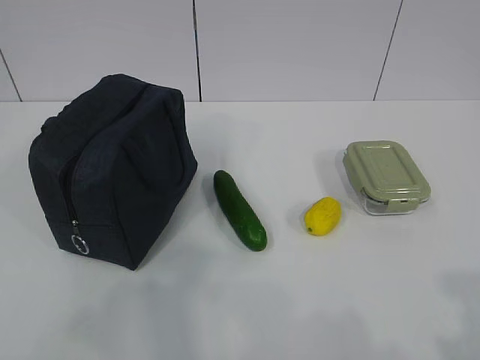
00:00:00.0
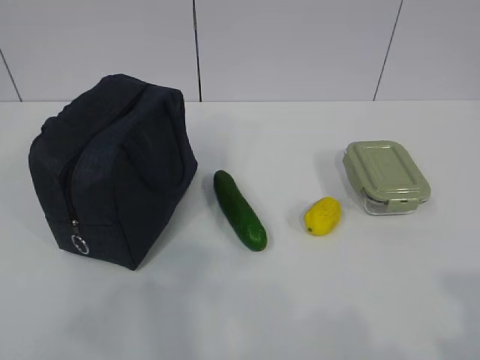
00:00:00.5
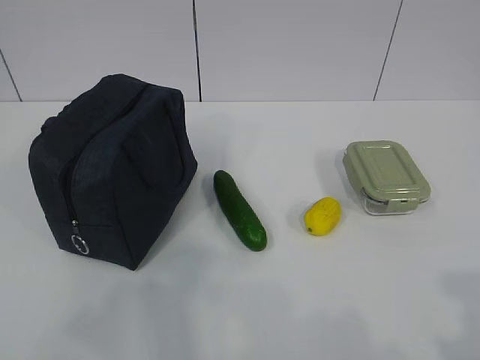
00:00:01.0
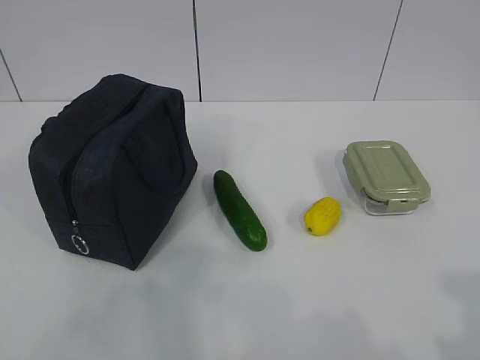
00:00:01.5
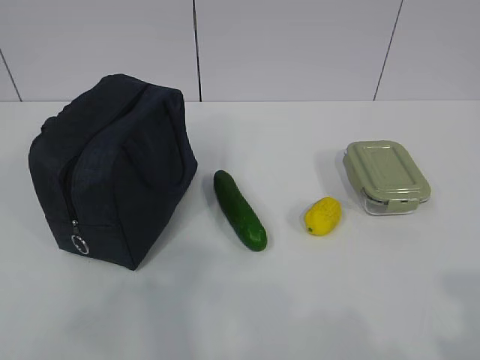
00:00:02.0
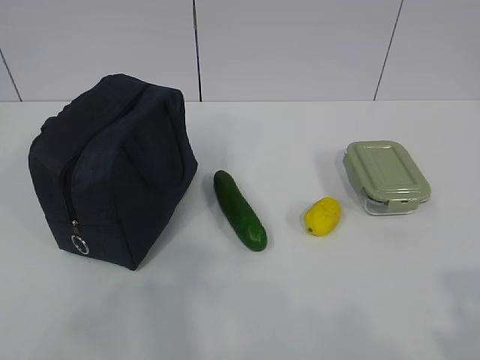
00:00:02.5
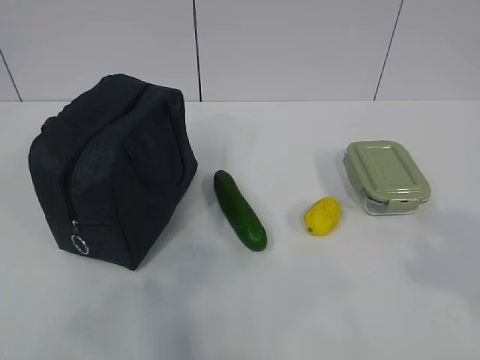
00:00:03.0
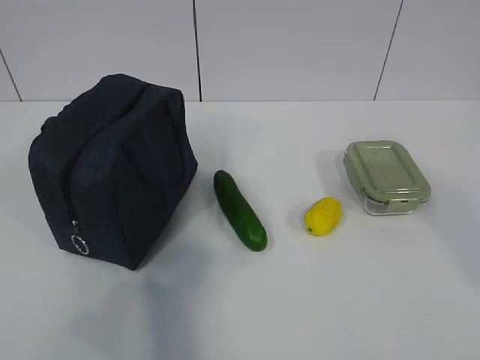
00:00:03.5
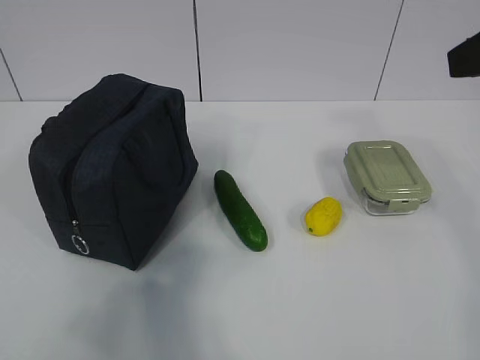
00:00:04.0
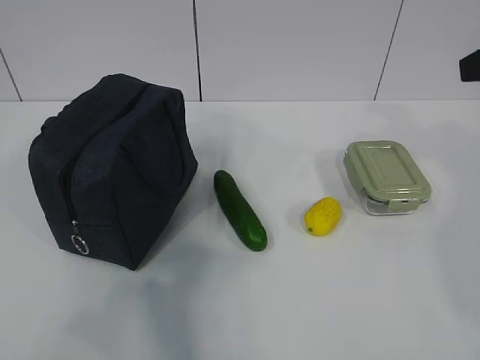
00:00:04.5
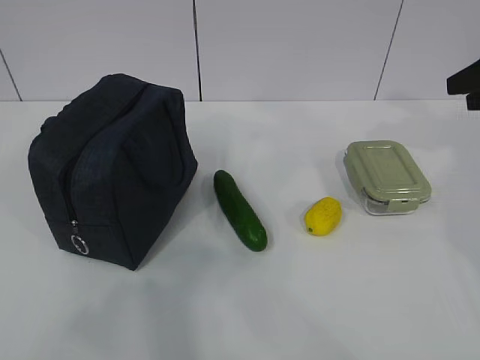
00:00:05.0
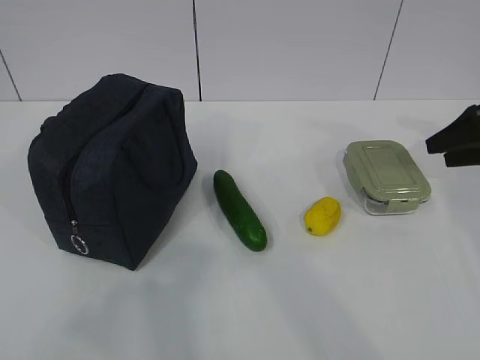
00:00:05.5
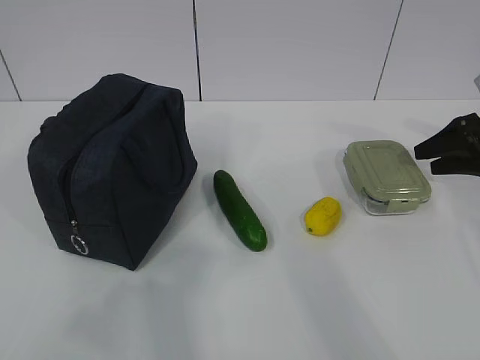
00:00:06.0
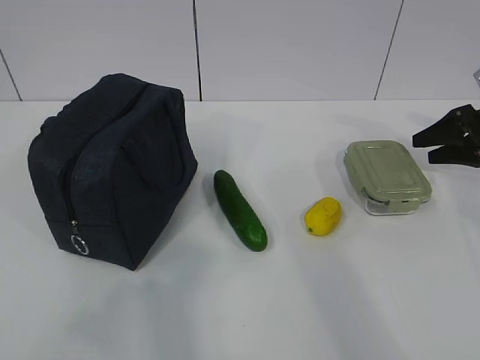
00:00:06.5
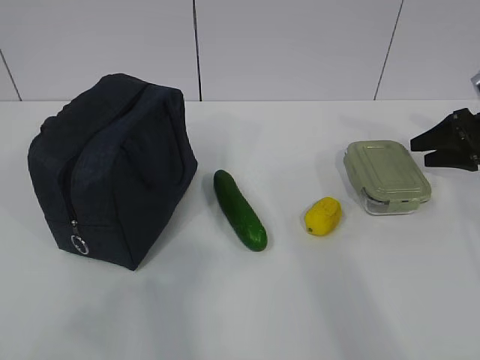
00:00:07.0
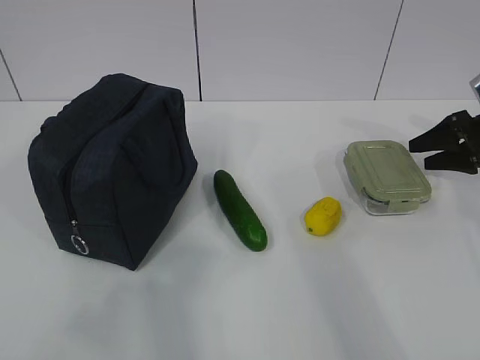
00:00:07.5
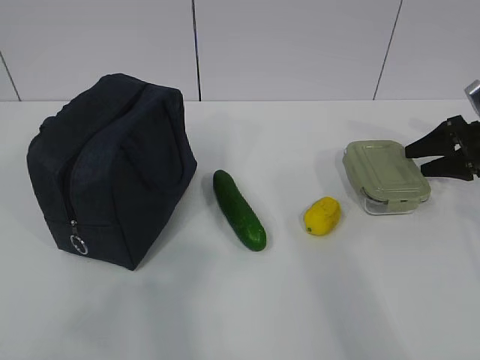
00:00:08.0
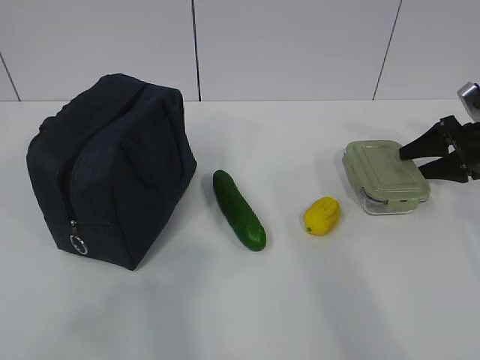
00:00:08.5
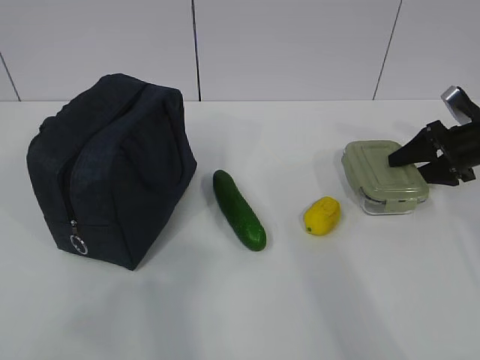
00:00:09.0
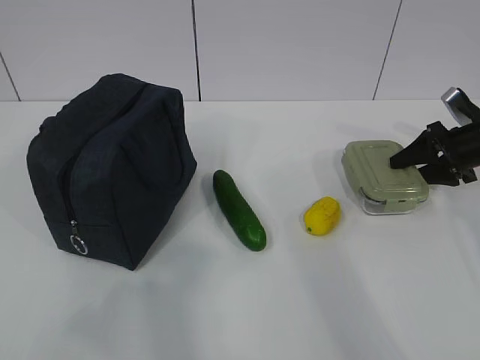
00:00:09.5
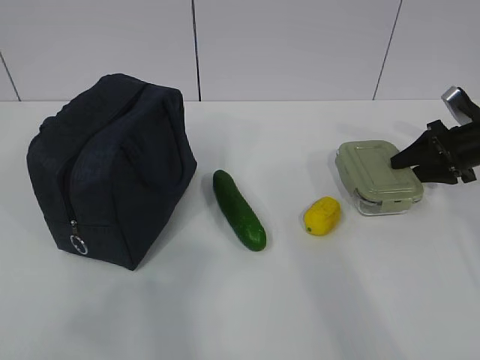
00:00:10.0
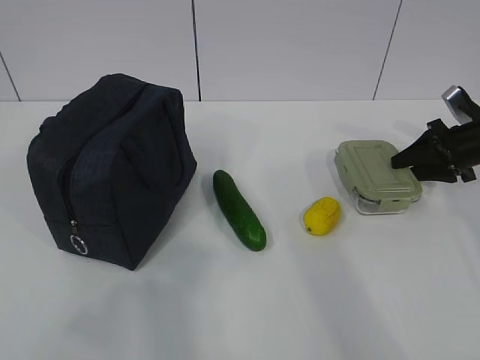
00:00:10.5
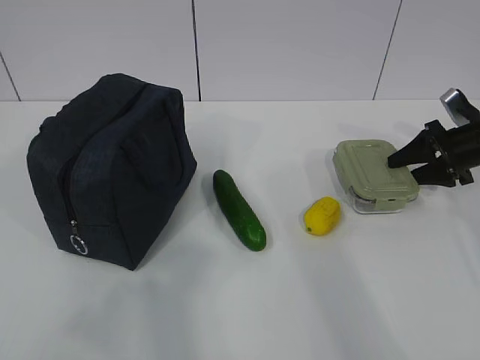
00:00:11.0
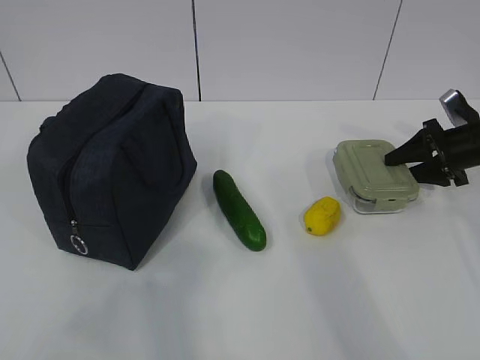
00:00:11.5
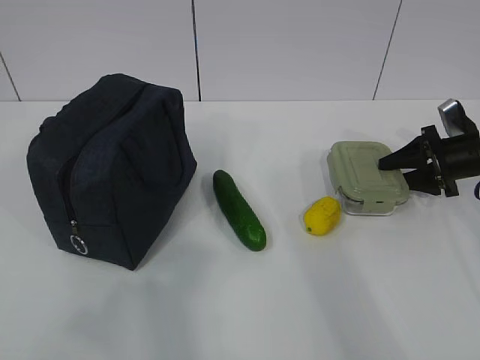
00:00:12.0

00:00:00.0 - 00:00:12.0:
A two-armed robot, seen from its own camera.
Step, 00:00:00.0 - 00:00:11.5: Grab the lunch box with your right hand.
00:00:02.0 - 00:00:04.0: The right gripper is displaced forward and upward by about 25 cm, and opens.
00:00:04.0 - 00:00:06.0: The right gripper travels downward, forward and to the right by roughly 35 cm.
00:00:06.0 - 00:00:10.0: There are only small adjustments of the grippers.
00:00:10.0 - 00:00:12.0: The grippers make only small movements.

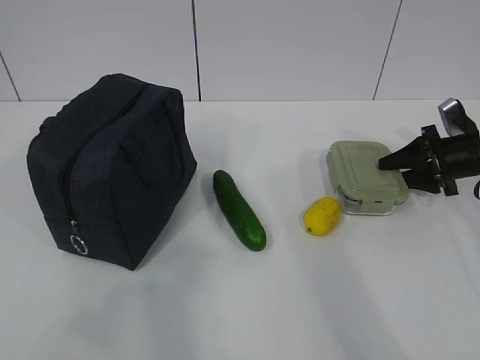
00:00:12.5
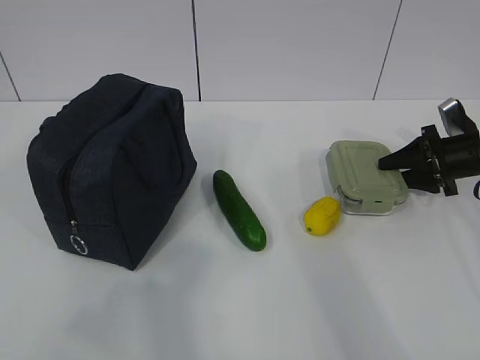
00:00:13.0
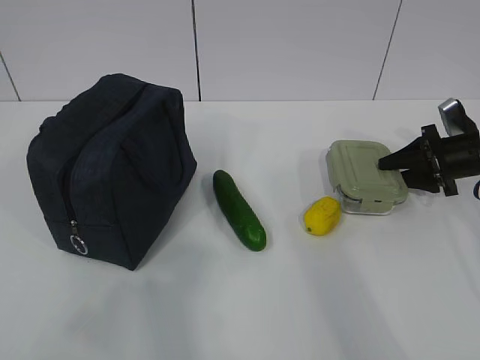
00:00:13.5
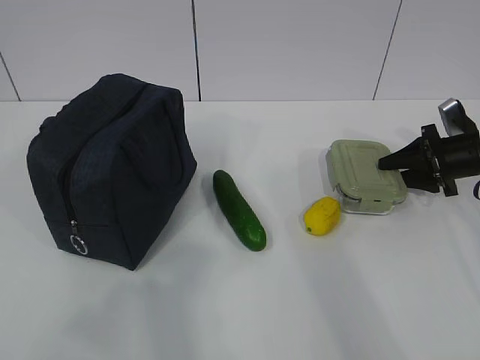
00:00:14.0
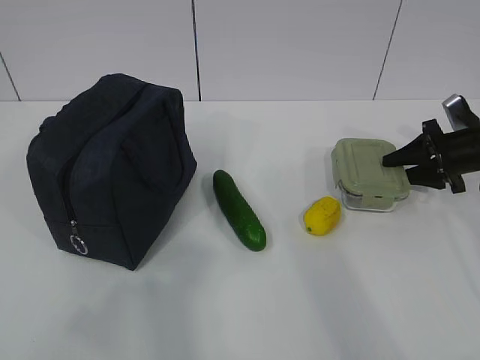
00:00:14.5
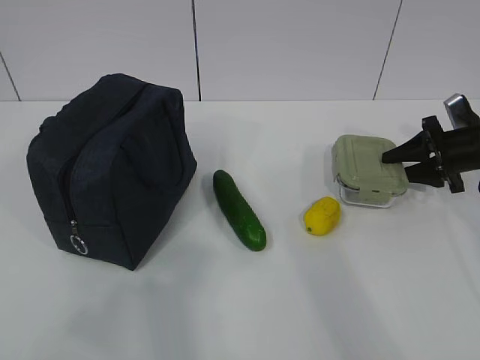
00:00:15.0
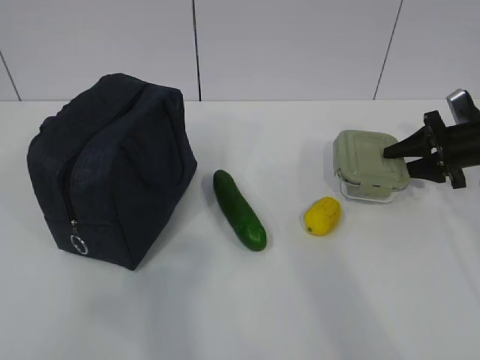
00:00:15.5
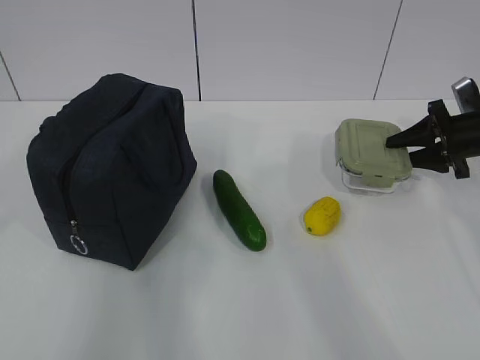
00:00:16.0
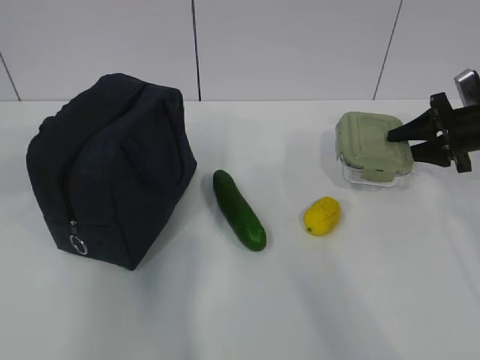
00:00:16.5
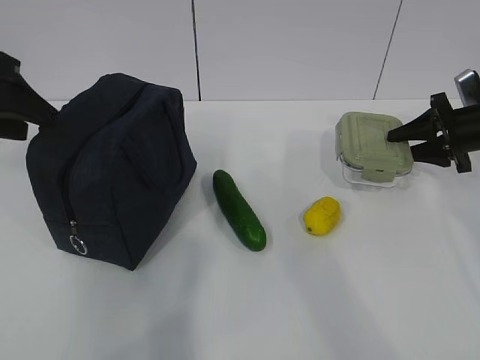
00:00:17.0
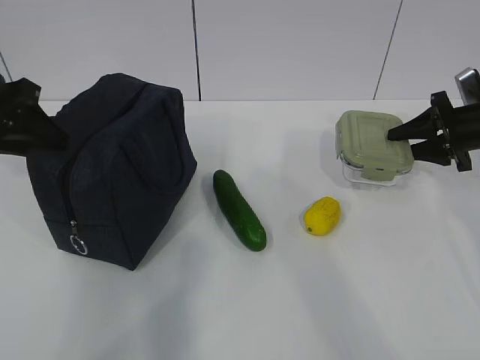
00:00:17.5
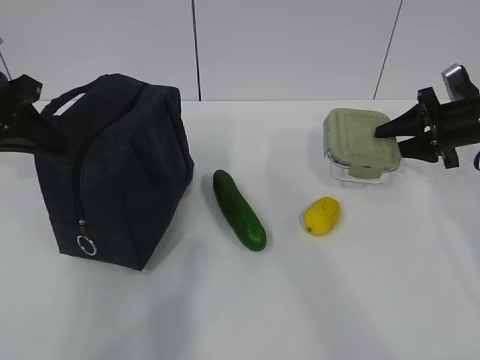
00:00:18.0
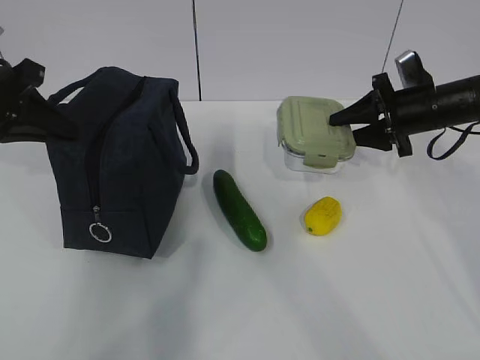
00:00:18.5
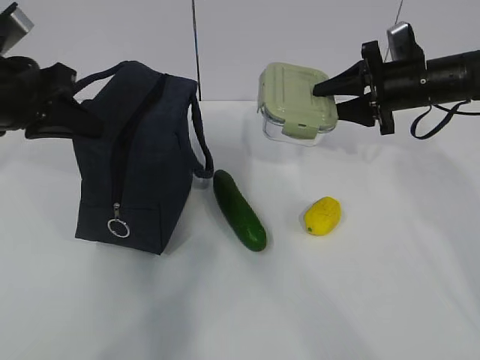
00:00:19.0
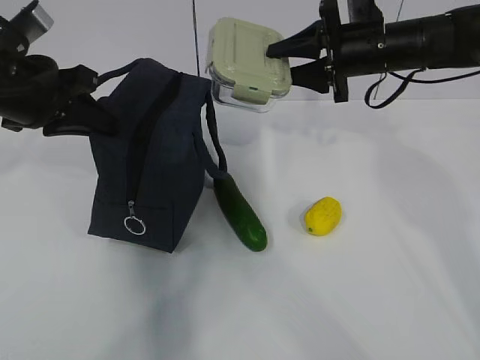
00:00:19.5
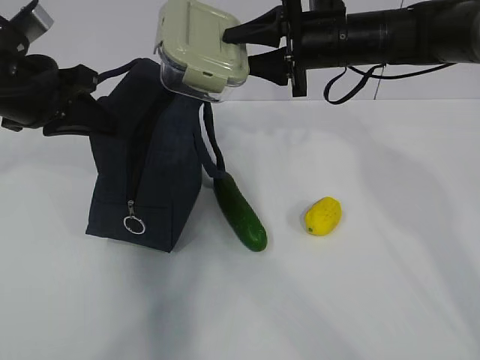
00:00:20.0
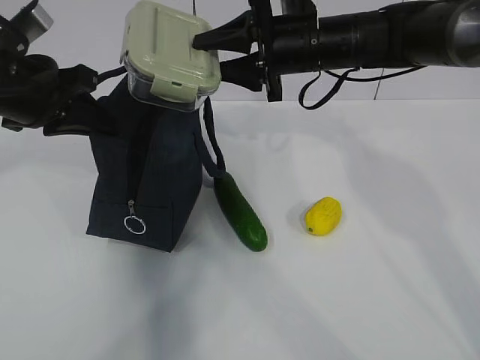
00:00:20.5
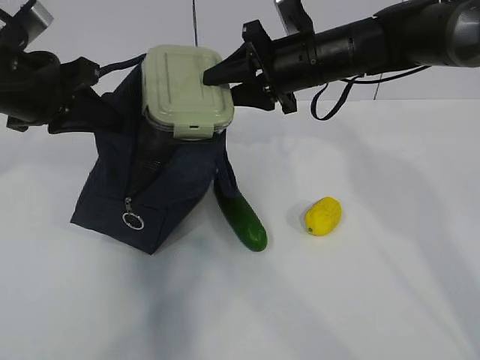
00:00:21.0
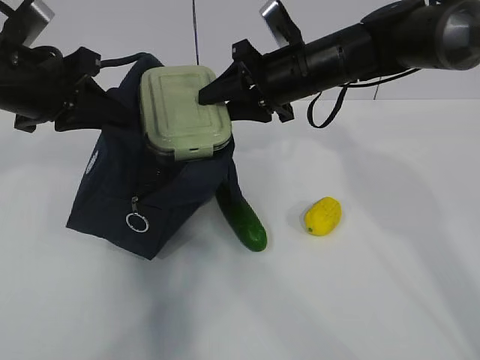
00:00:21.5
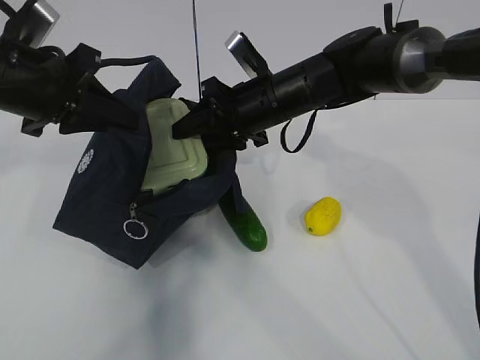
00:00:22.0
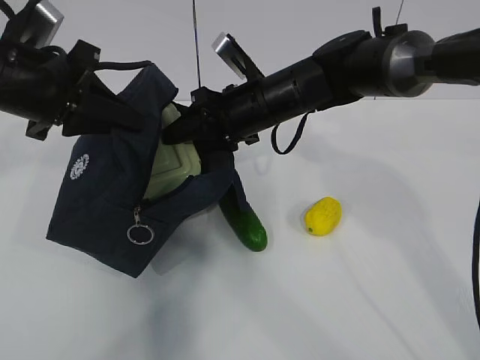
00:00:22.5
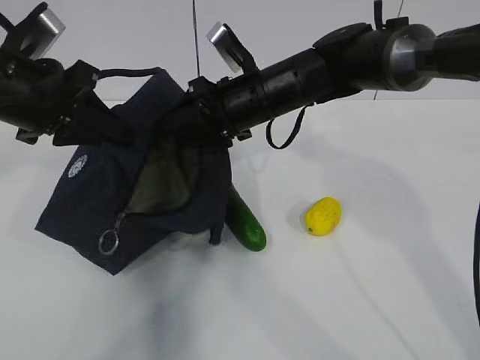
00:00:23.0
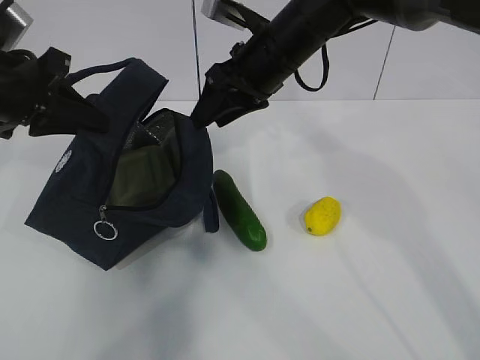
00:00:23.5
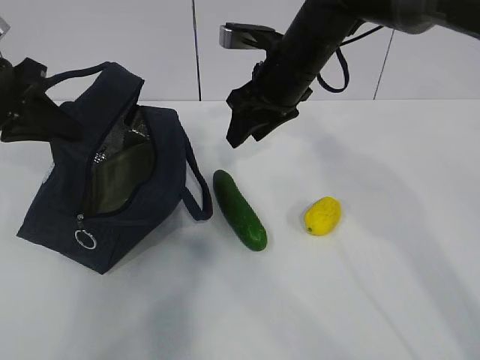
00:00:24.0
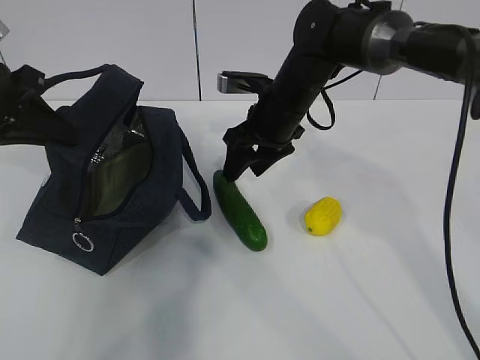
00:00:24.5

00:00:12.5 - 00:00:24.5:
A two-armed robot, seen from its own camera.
Step, 00:00:12.5 - 00:00:17.0: Grab the lunch bag with your left hand.
Step, 00:00:17.5 - 00:00:19.0: Place it into the bag with your right hand.
Step, 00:00:19.5 - 00:00:22.0: Grab the cucumber with your right hand.
Step, 00:00:22.5 - 00:00:24.0: Place it into the bag with your right hand.
00:00:12.5 - 00:00:14.5: The two grippers keep their place.
00:00:16.5 - 00:00:18.5: The right gripper moves to the left, about 10 cm. The left gripper shifts roughly 10 cm forward and downward, and closes.
00:00:18.5 - 00:00:20.5: The left gripper is displaced to the right by roughly 5 cm, while the right gripper shifts roughly 20 cm to the left and upward.
00:00:20.5 - 00:00:22.5: The right gripper moves downward and to the left, about 10 cm.
00:00:22.5 - 00:00:24.5: The left gripper is displaced to the left by approximately 5 cm, while the right gripper travels upward and back again, some 5 cm each way.

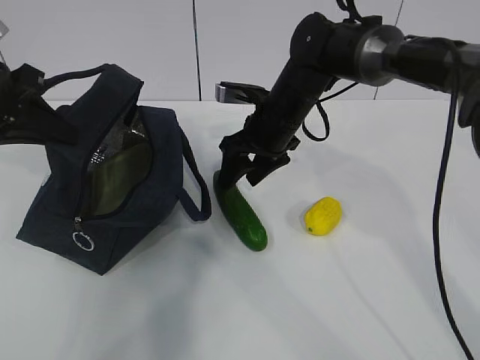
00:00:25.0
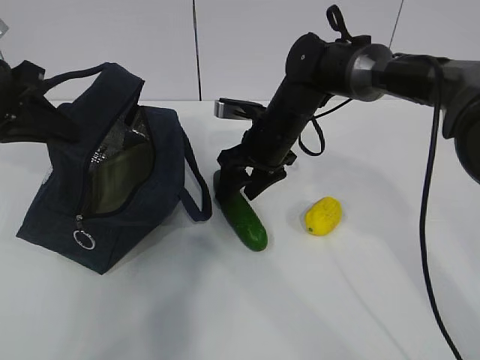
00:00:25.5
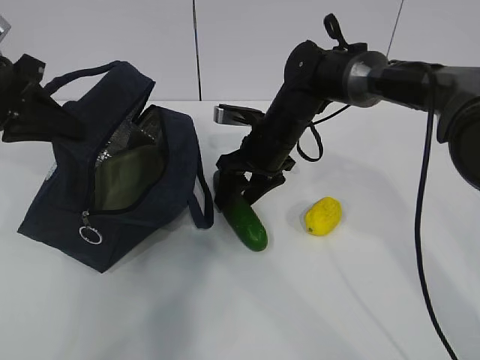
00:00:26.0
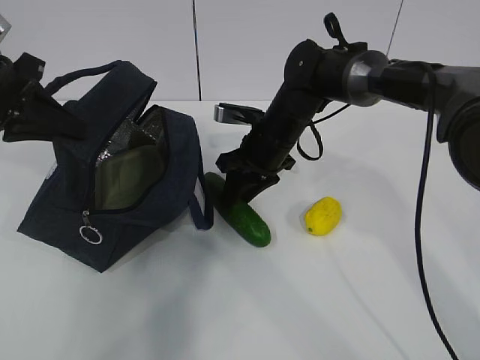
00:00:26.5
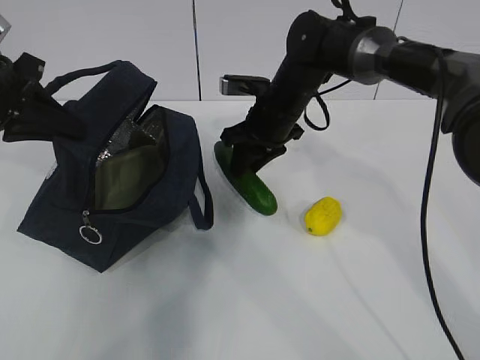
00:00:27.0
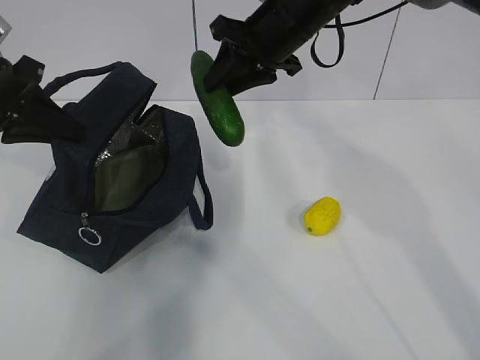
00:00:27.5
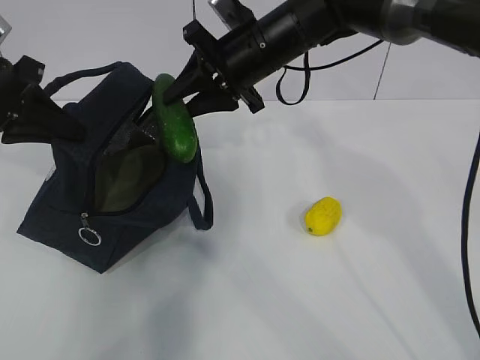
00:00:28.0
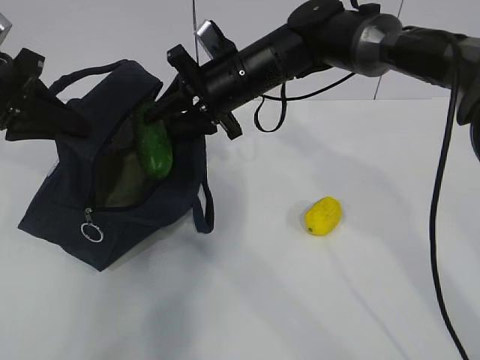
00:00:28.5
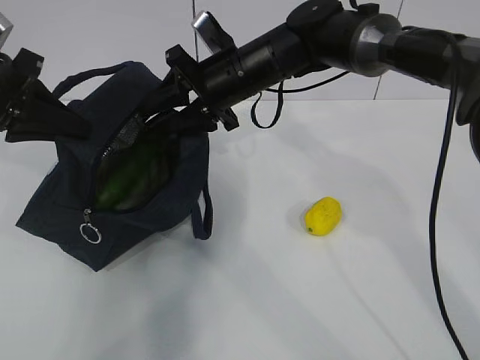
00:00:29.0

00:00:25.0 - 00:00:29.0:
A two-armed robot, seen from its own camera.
Step, 00:00:25.0 - 00:00:27.5: Grab the lemon with your right hand.
00:00:25.0 - 00:00:27.0: The right gripper closes.
00:00:27.0 - 00:00:29.0: The right gripper moves upward and to the left, about 5 cm.
